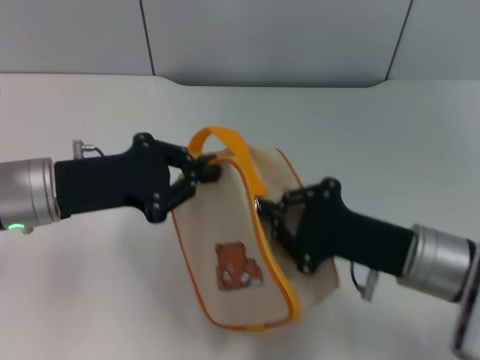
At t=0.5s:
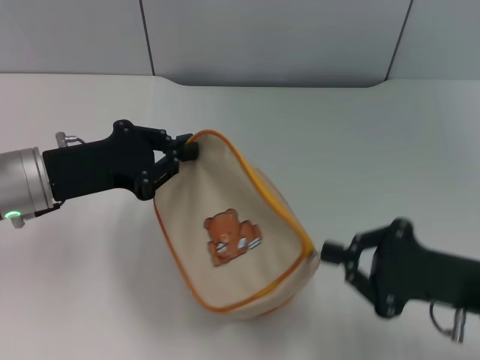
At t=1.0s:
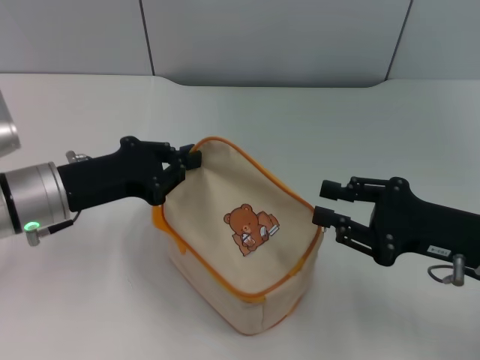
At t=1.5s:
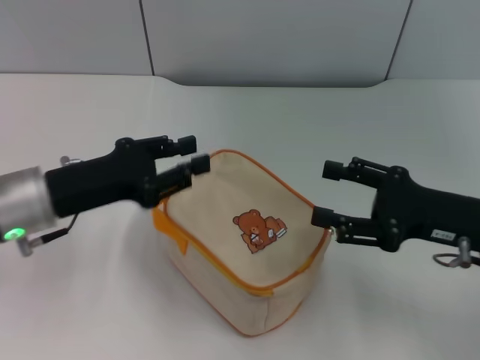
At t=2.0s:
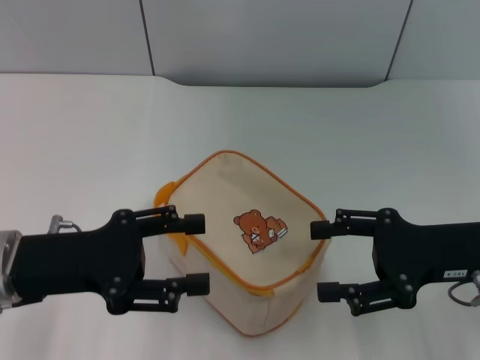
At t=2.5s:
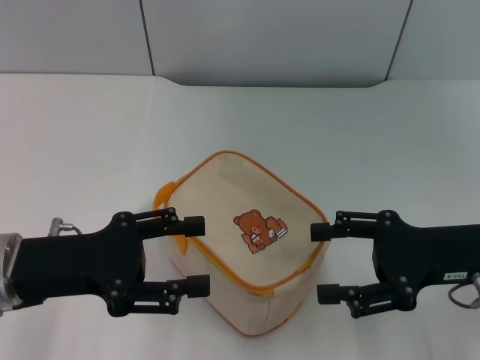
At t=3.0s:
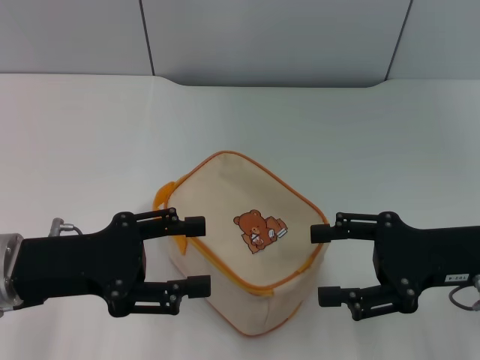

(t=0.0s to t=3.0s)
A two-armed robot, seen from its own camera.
t=0.0s - t=1.5s: The right gripper is displaced to the right by approximately 5 cm, and opens up.
t=1.5s - t=3.0s: The left gripper shifts some 5 cm backward, and opens.

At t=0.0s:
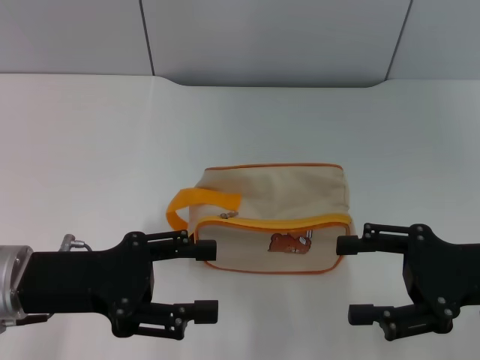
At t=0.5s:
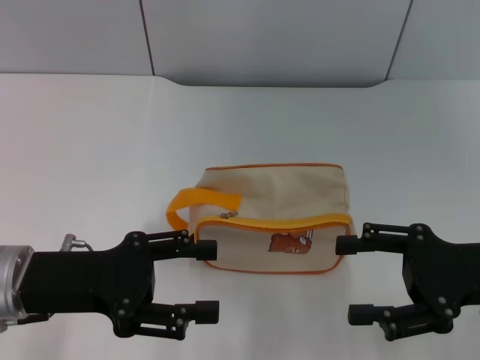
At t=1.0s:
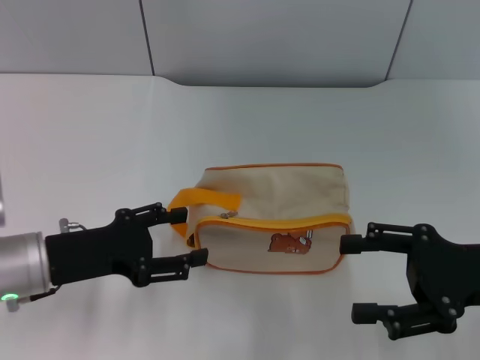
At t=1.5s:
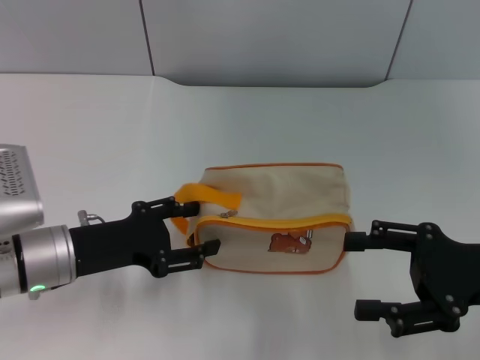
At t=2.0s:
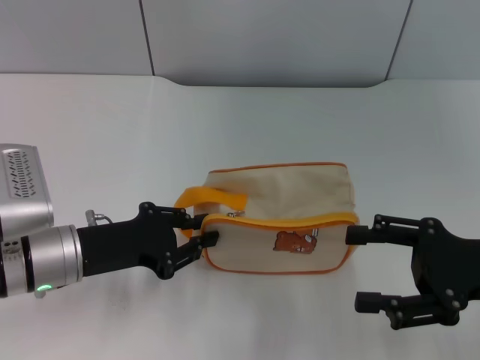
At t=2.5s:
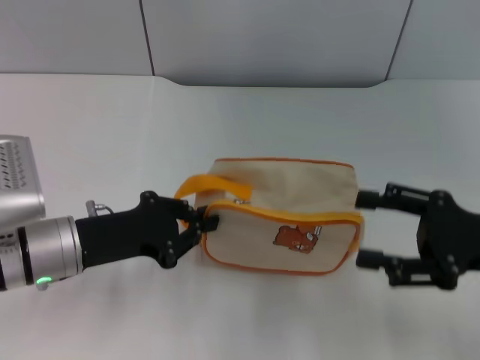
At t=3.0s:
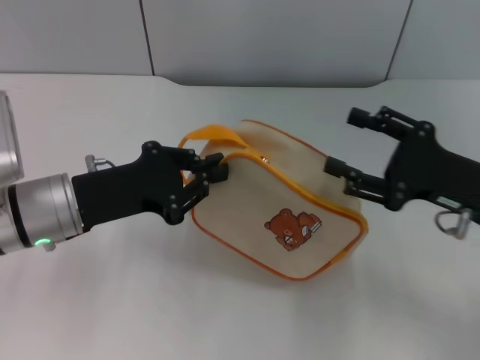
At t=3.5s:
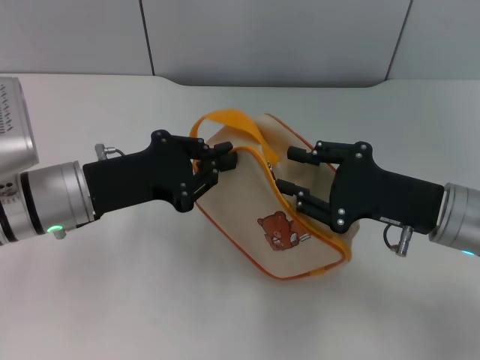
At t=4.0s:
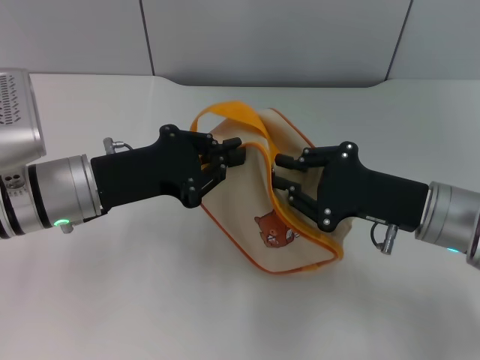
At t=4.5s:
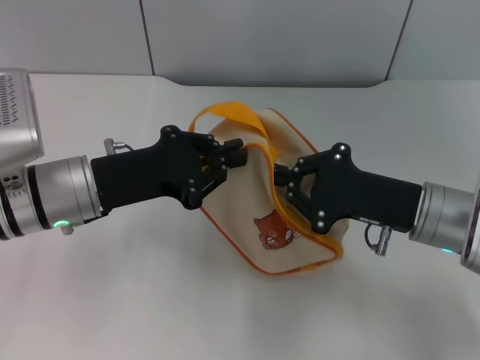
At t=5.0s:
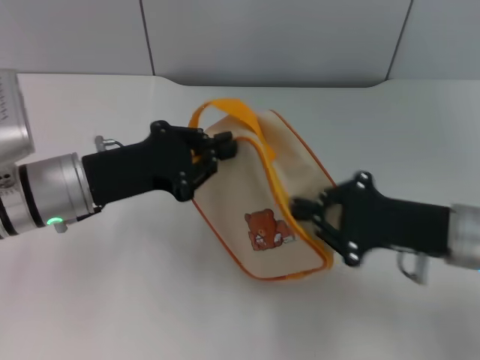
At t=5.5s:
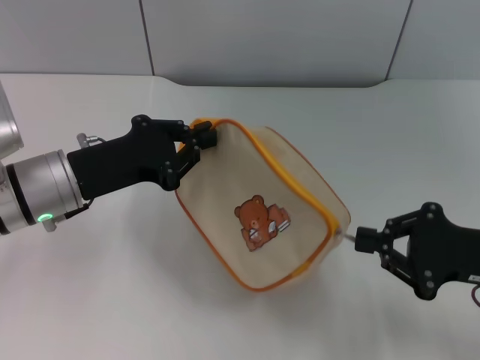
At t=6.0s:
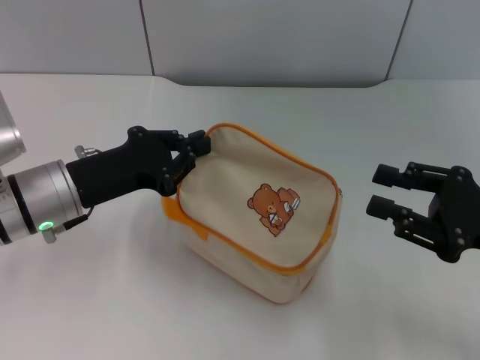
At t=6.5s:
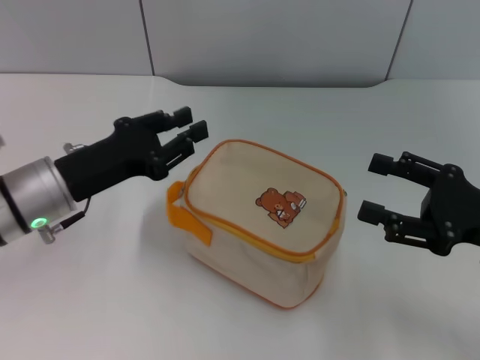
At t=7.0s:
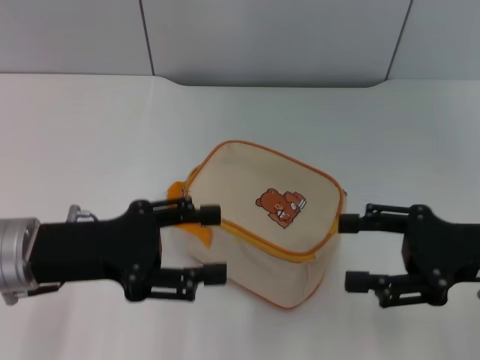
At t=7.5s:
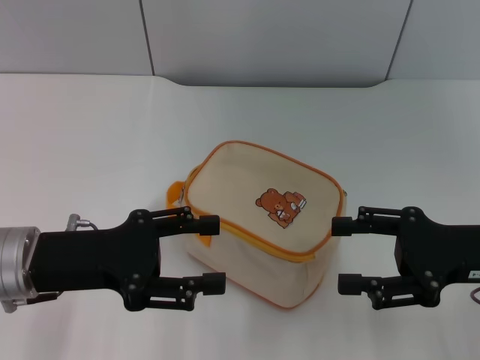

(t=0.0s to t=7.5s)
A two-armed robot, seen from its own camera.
Step, t=0.0s - t=2.5s: Pick up the bag with left gripper.
Step, t=3.0s - t=5.5s: Unzip the zipper of bag with right gripper.
Step, t=6.0s - t=6.5s: Place the bag on the table with left gripper.
t=0.0s - t=2.0s: The left gripper moves about 5 cm.
t=2.0s - t=4.0s: The left gripper moves upward, some 5 cm, and closes. The right gripper moves to the left and forward, some 10 cm, and closes up.
t=4.0s - t=5.5s: The right gripper travels to the right and backward by approximately 10 cm, and closes.
t=5.5s - t=7.5s: The left gripper is displaced backward by about 5 cm, and opens, while the right gripper opens.
